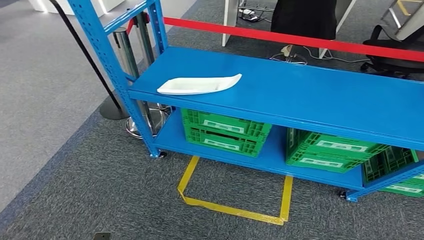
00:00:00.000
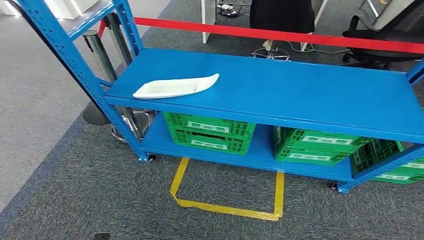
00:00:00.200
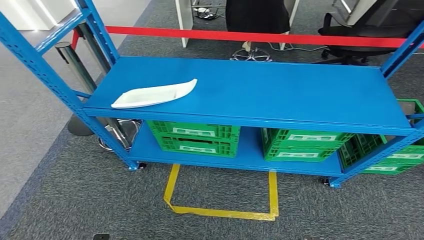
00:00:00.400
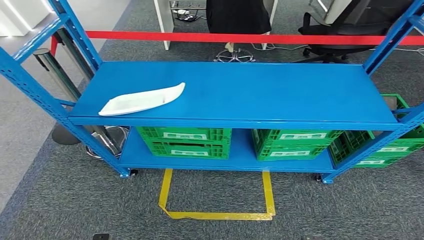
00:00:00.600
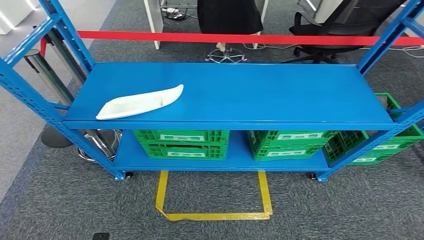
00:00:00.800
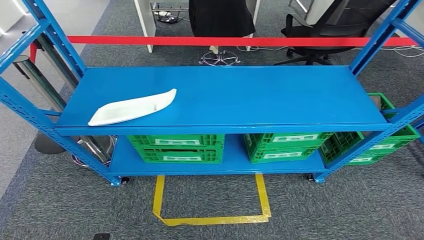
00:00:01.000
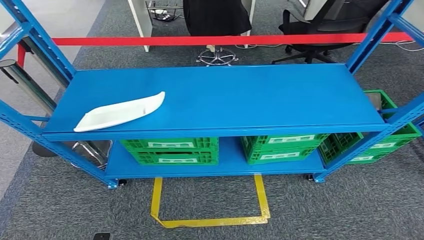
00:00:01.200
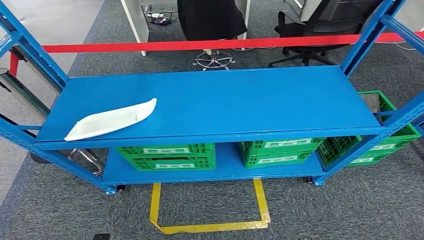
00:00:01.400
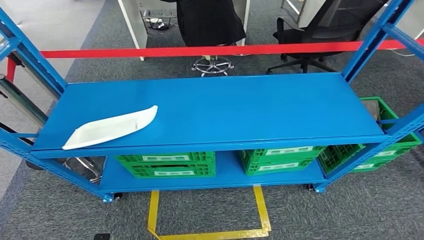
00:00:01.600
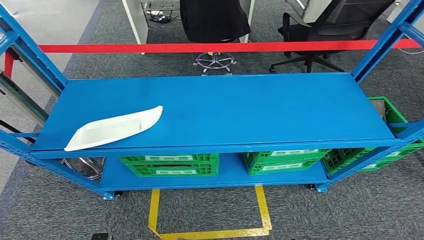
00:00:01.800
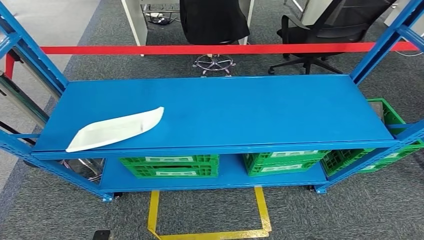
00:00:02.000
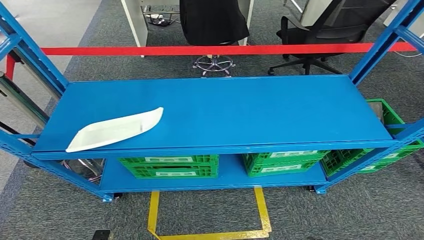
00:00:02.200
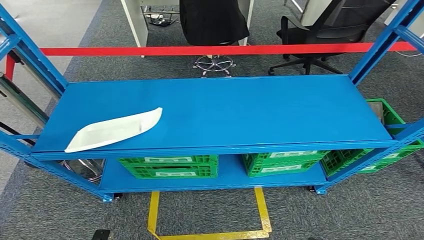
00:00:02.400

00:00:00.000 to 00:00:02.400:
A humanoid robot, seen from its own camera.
Step, 00:00:00.000 to 00:00:02.400: Return to the initial position at the workbench.

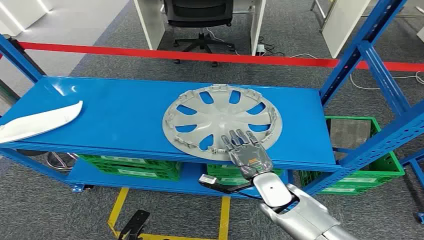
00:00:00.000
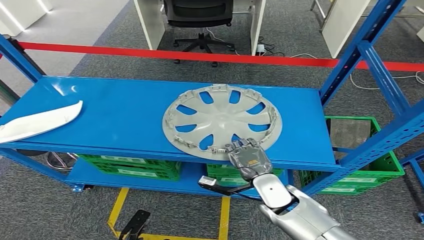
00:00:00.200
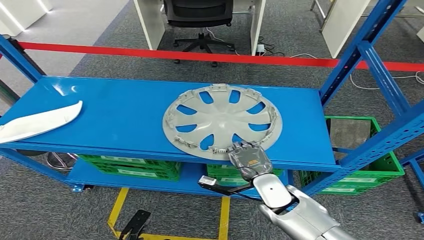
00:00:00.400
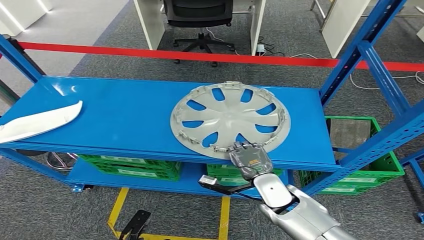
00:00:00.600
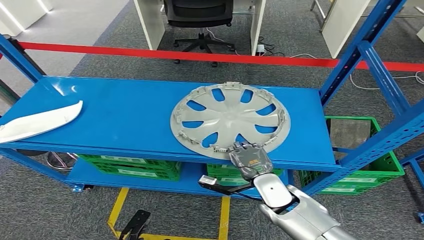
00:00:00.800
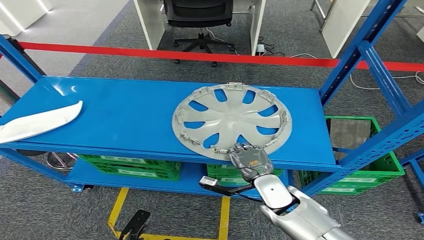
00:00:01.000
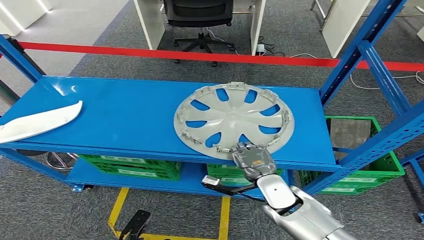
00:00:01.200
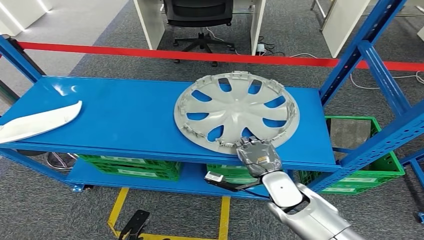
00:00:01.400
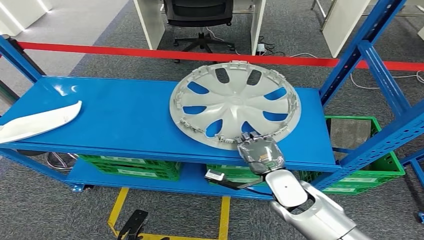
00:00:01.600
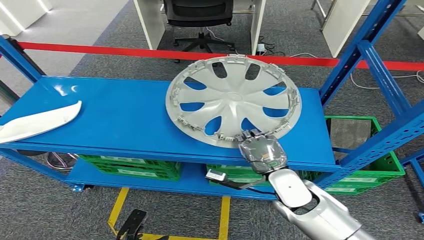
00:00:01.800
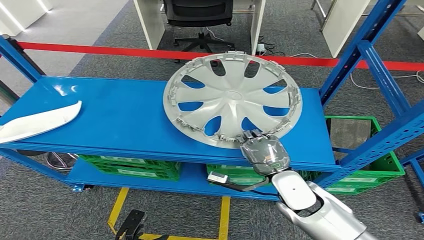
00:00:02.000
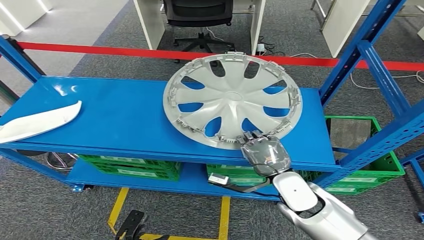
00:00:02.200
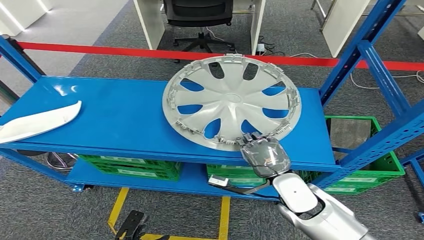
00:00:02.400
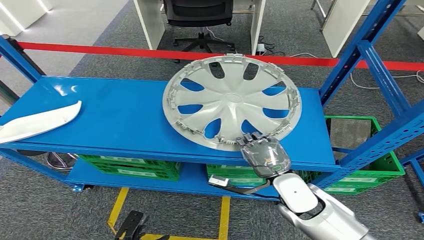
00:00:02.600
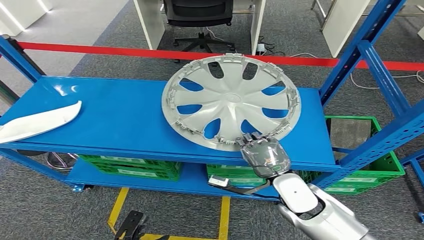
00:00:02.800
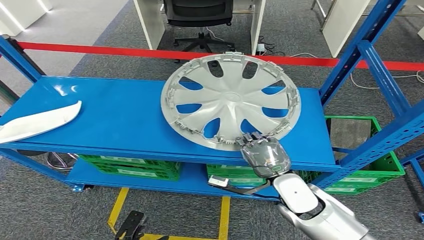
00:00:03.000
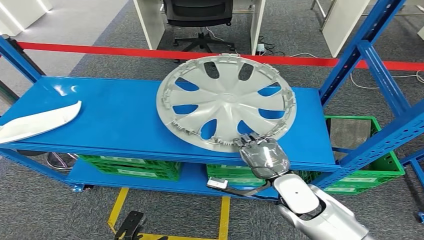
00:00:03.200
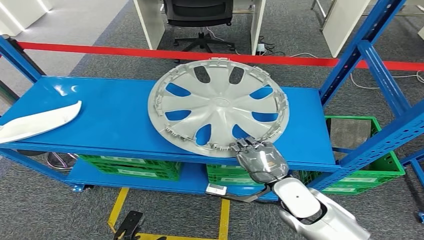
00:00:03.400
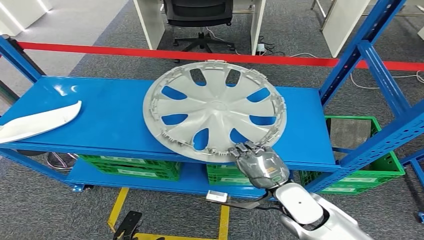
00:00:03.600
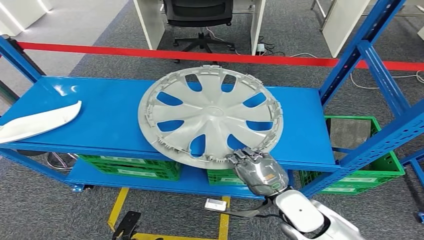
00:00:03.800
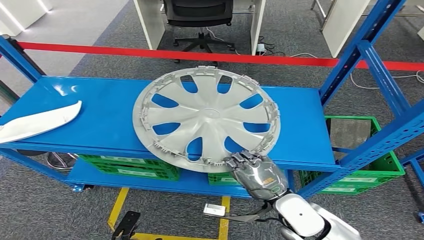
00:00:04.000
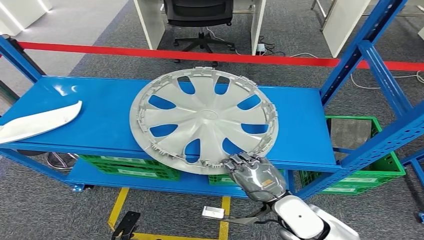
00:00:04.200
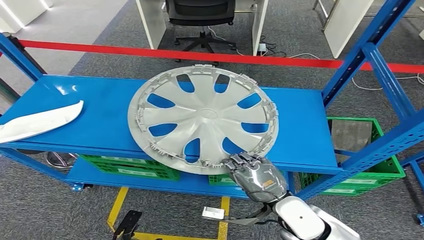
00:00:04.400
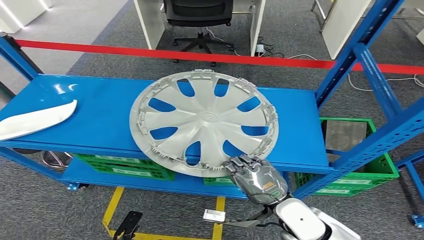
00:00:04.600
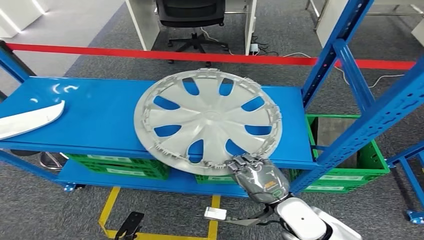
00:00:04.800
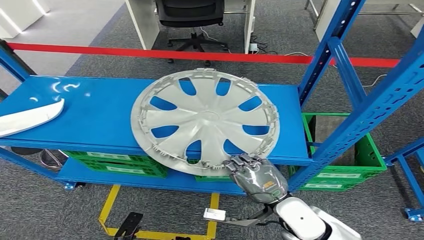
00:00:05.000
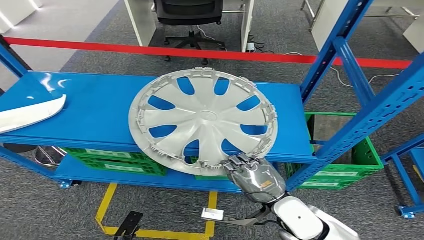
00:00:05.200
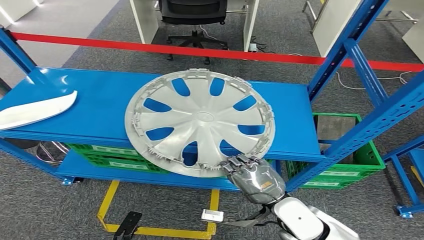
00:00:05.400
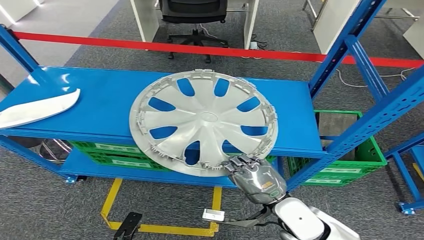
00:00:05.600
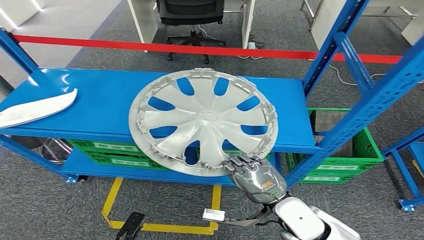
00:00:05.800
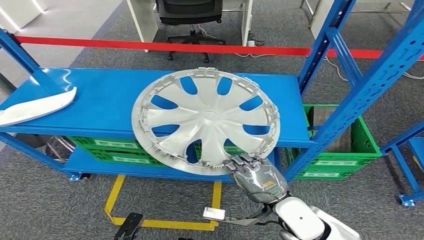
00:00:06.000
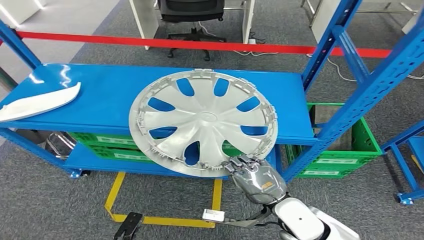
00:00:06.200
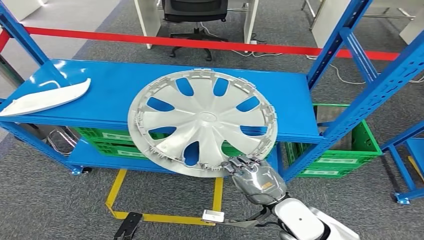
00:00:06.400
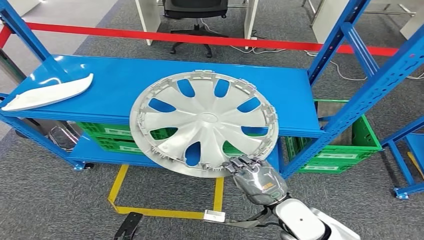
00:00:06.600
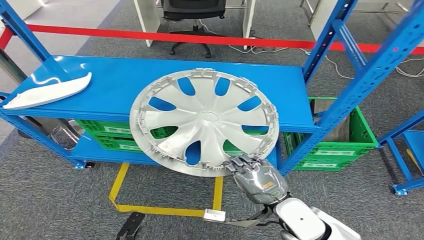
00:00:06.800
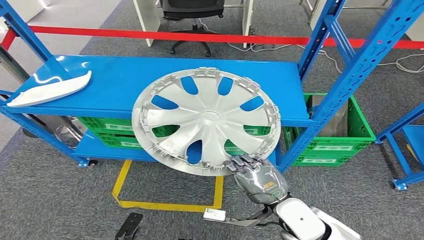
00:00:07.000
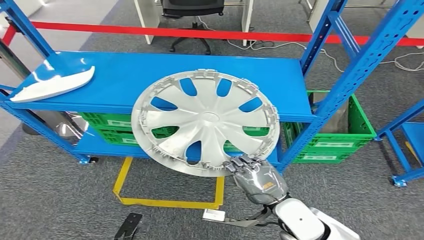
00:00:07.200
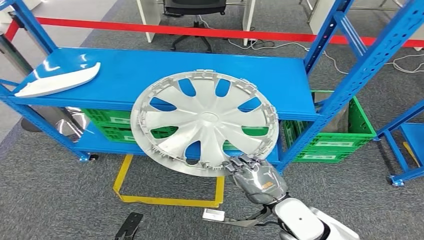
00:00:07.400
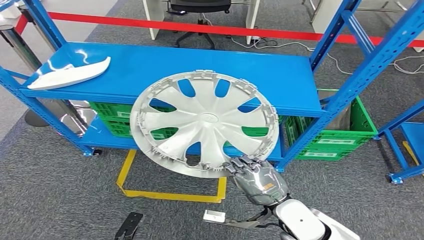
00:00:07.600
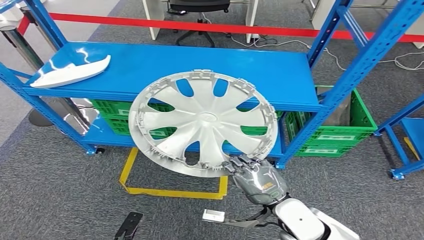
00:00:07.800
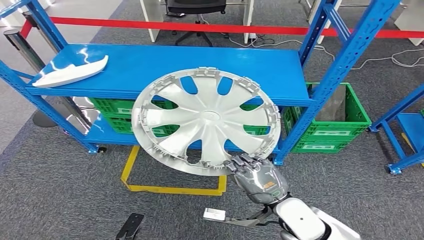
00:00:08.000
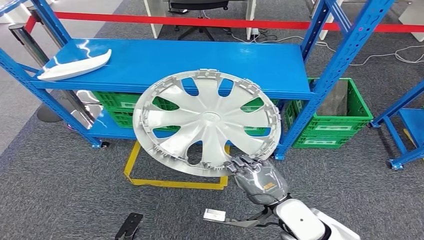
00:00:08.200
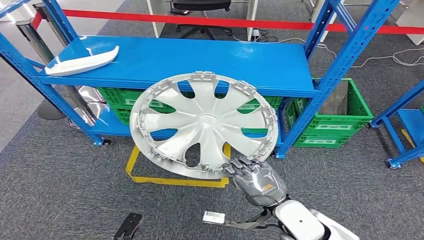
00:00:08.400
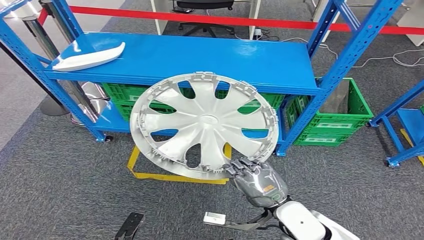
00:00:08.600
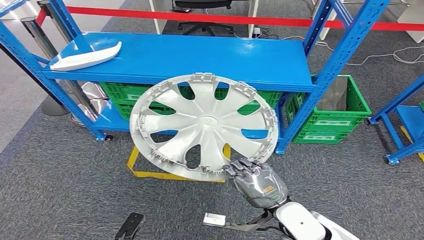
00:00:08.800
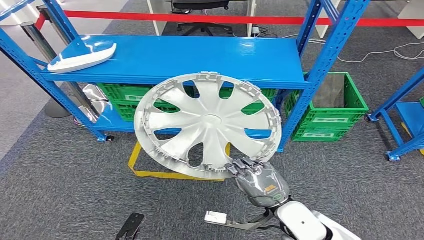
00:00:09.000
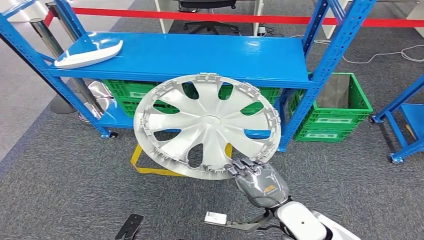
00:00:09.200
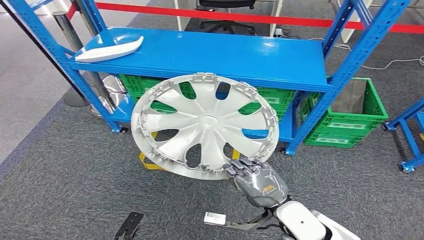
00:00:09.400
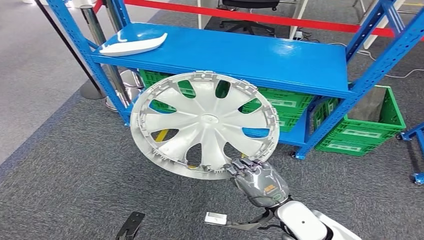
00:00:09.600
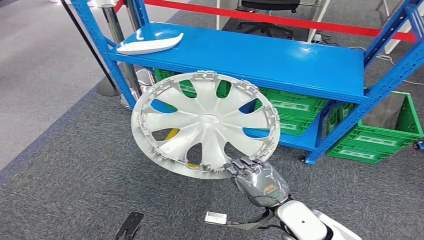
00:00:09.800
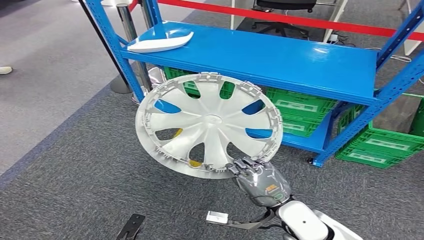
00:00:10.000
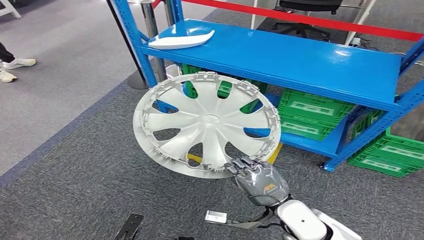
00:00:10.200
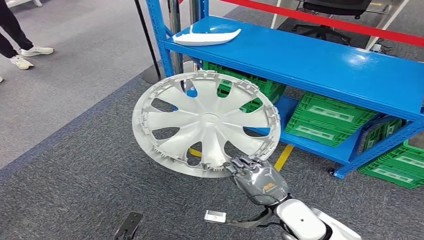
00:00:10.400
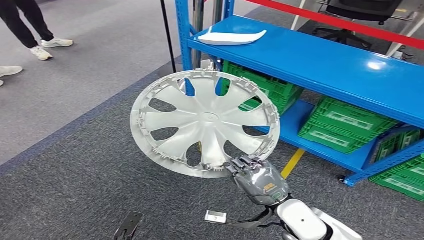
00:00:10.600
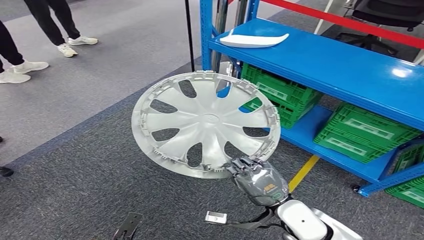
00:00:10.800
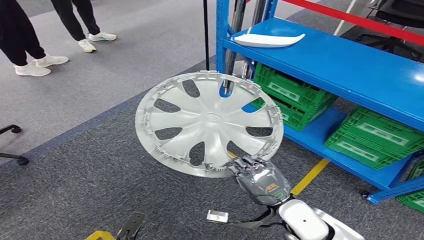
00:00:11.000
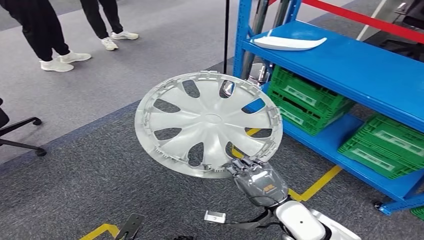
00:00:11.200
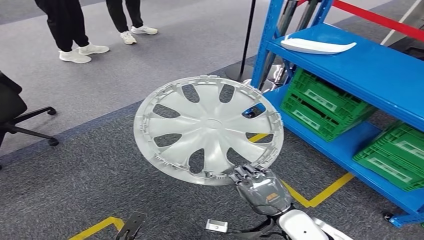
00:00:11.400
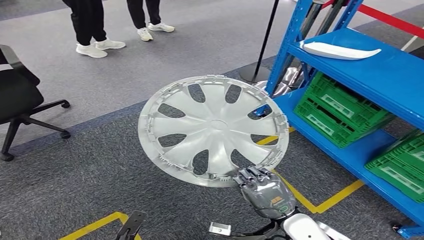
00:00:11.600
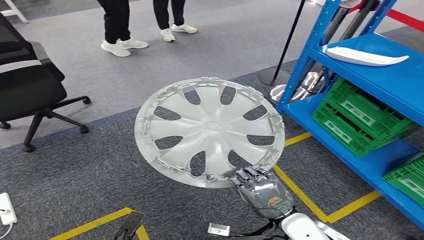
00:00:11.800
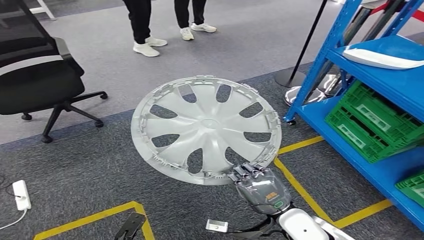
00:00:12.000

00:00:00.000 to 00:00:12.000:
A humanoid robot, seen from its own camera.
Step, 00:00:00.000 to 00:00:06.600: Pick up the small component from the shelf.
00:00:01.600 to 00:00:03.000: The hands move only a little.

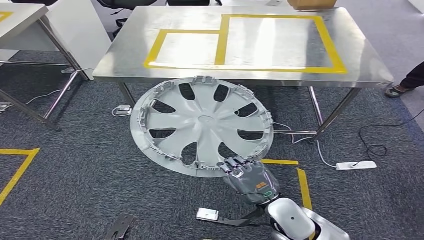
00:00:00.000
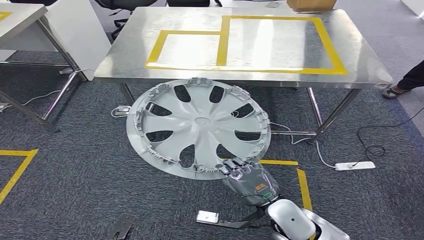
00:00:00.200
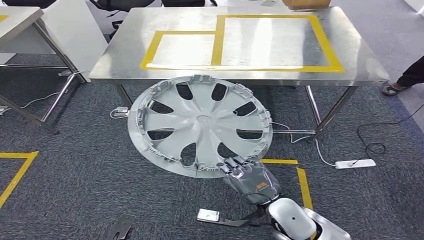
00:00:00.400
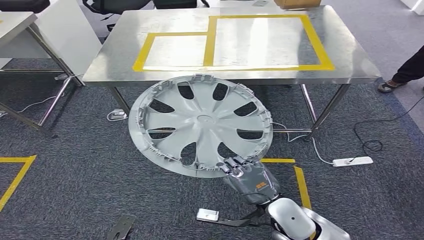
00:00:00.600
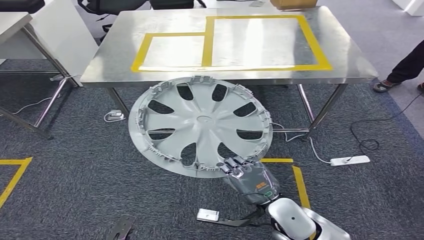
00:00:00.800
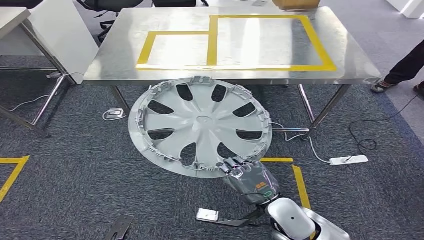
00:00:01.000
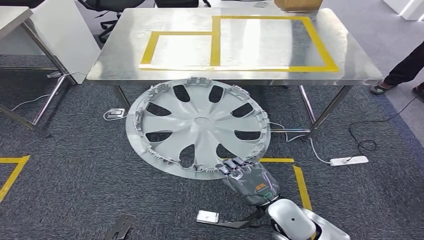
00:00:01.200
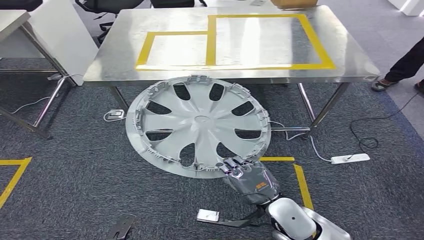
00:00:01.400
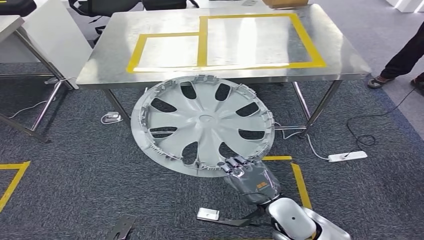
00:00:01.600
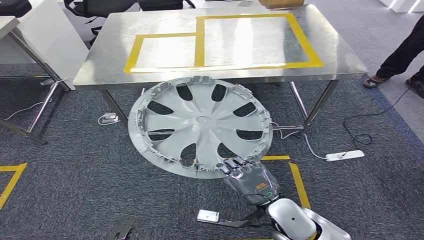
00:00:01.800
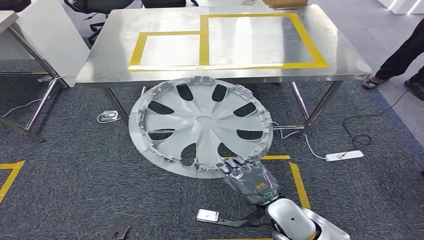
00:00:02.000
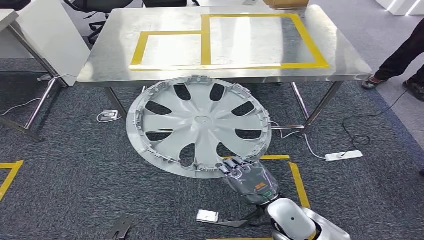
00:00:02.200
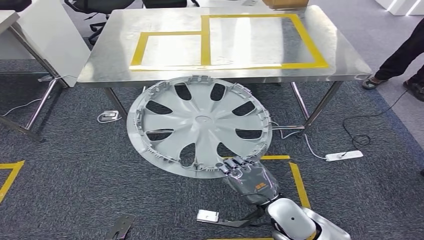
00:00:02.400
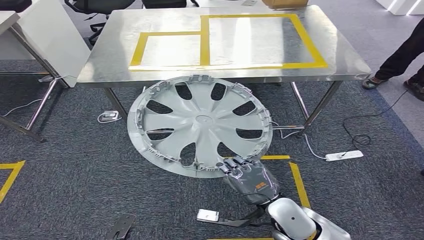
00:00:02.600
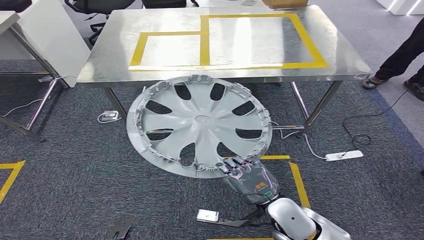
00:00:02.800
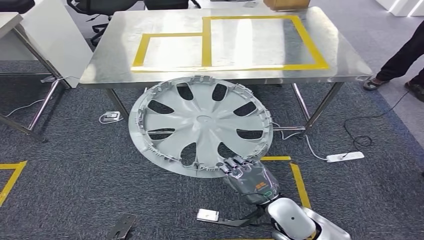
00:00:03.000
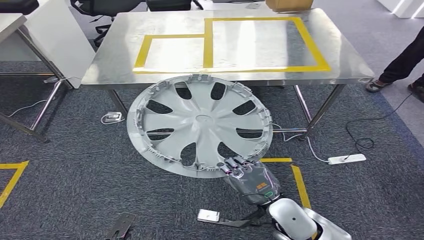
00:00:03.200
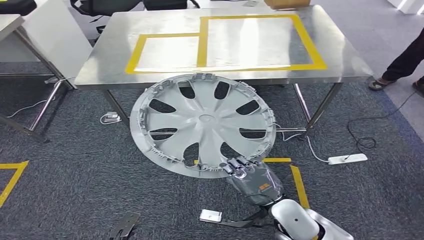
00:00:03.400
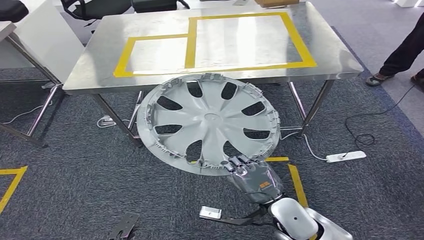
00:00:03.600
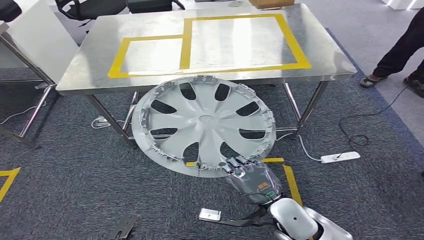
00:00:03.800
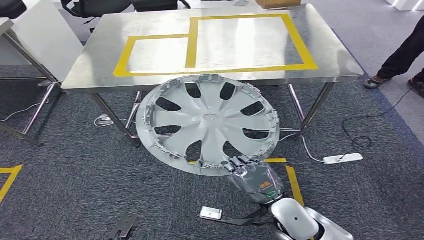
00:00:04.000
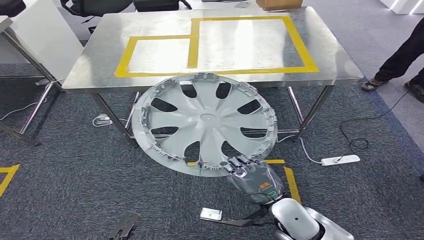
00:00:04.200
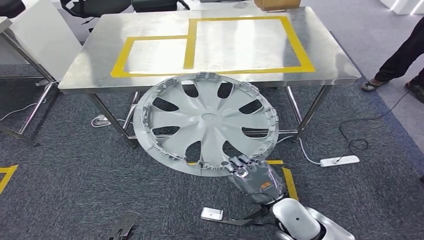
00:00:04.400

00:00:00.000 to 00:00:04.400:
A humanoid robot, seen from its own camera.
Step, 00:00:00.000 to 00:00:02.800: Move the small component to the workbench.
00:00:01.400 to 00:00:03.000: Both hands stay about where they are.
